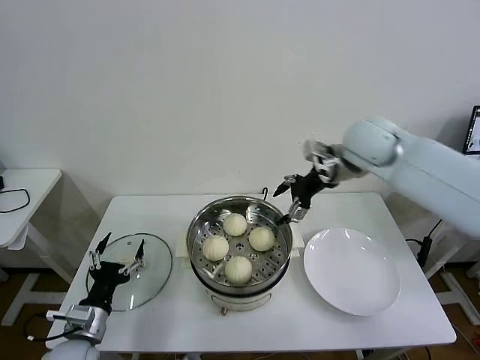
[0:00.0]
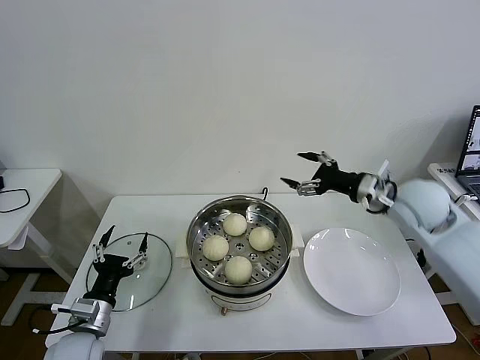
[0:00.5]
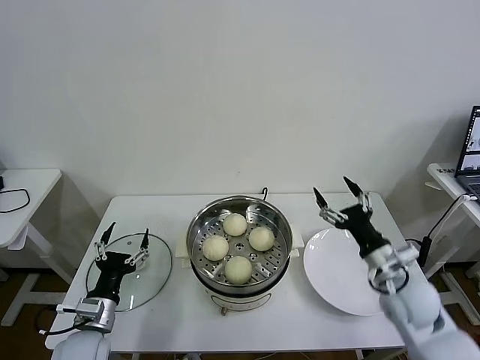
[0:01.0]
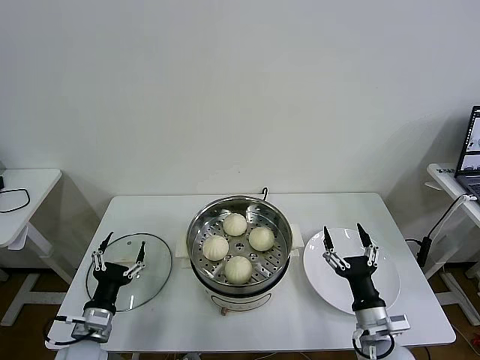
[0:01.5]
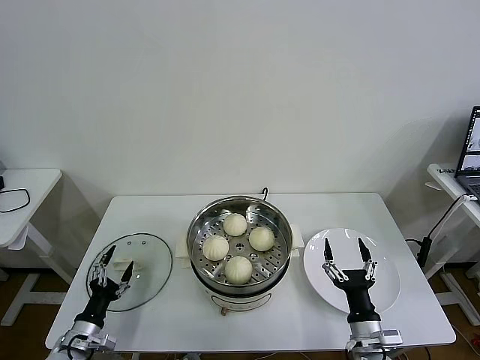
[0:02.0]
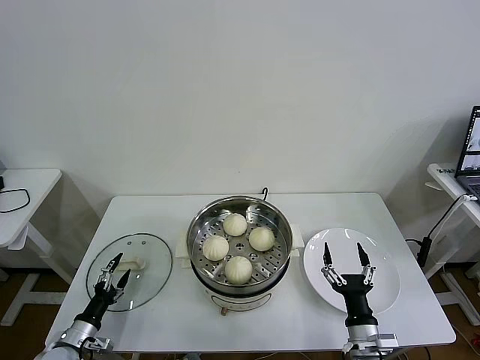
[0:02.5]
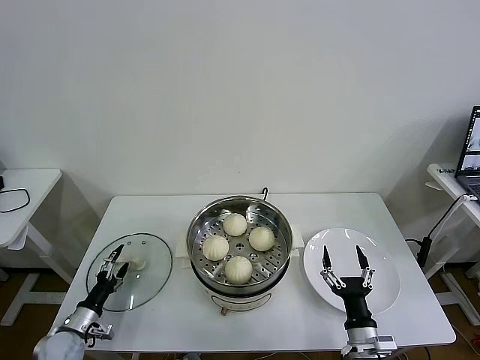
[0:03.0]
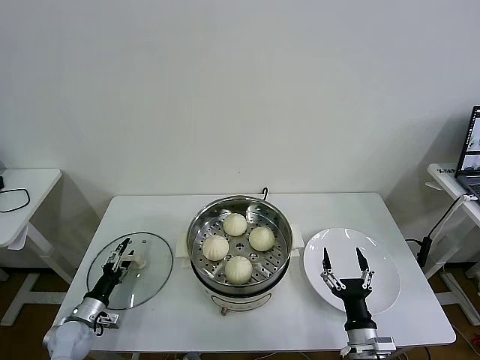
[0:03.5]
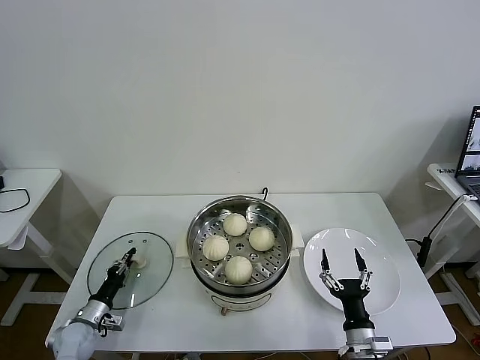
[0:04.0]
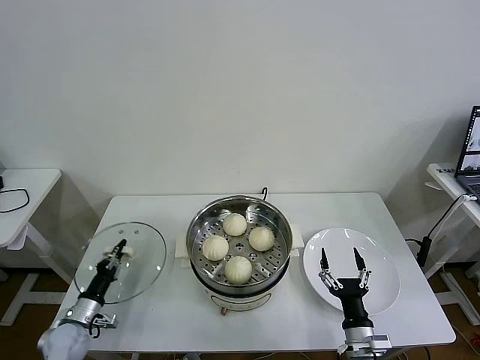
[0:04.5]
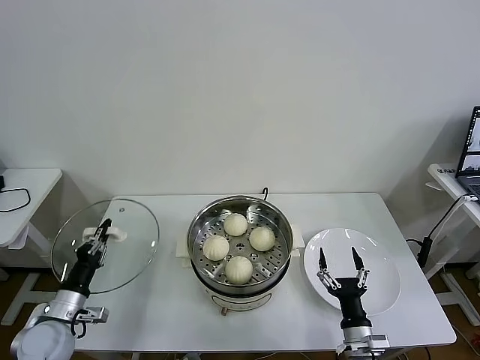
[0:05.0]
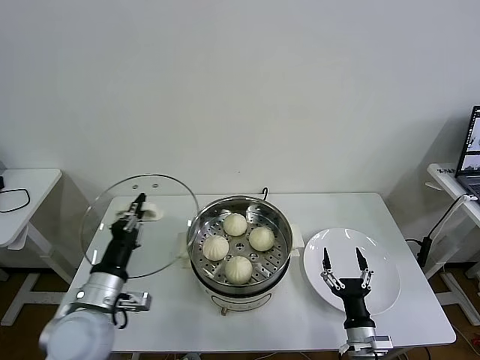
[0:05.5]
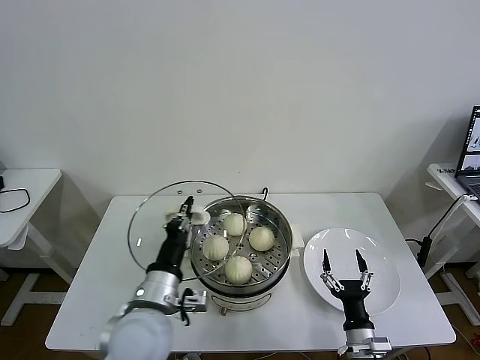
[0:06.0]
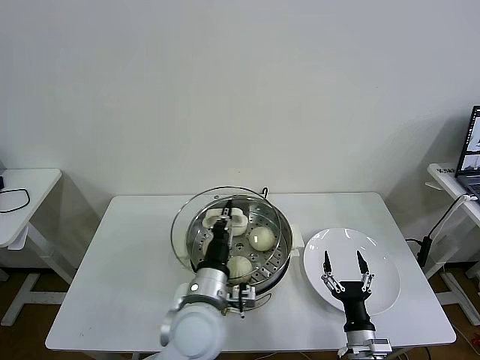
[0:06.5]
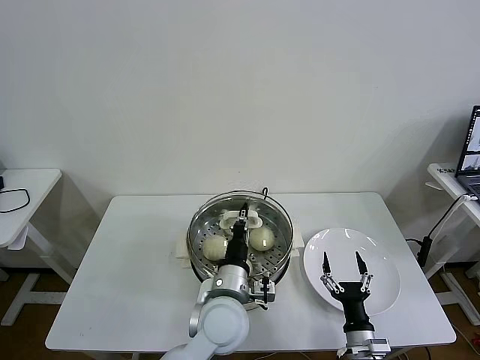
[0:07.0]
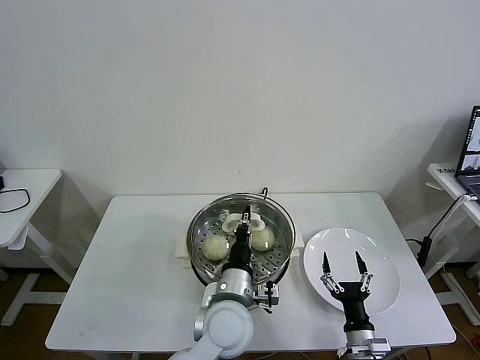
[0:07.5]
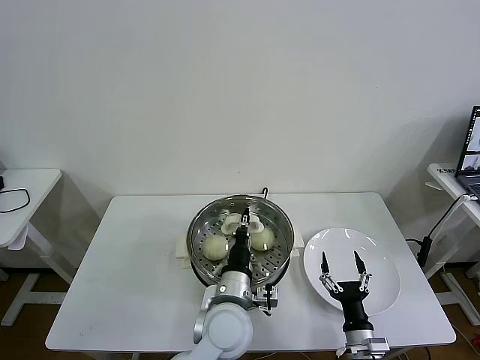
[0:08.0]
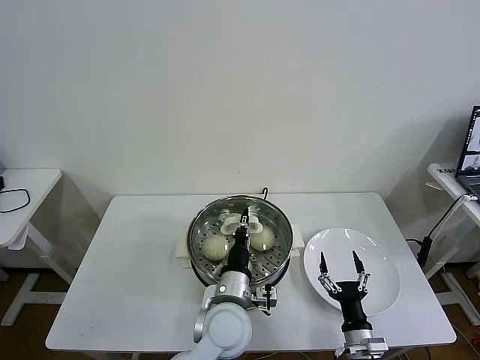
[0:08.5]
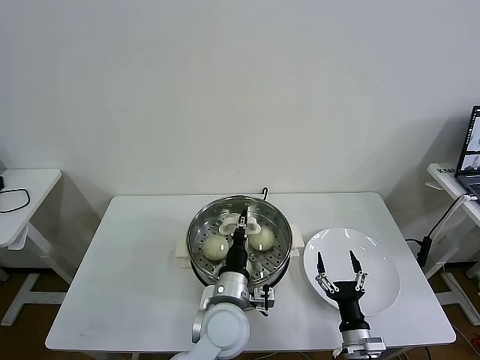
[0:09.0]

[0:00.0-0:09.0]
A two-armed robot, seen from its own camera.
Task of the whole recording: take steamed baozi put them in steamer then cover it.
Step, 0:00.0 to 0:04.0: Grasp the pot lid with left gripper.
0:00.0 to 0:02.0: The left gripper goes some 10 cm downward and to the left; the right gripper travels downward and backward by about 50 cm.
0:02.0 to 0:04.5: The left gripper shifts roughly 5 cm forward, and closes its fingers.
0:04.5 to 0:07.0: The left gripper goes about 40 cm to the right and upward.
0:07.0 to 0:09.0: The grippers stay close to where they were, moving slightly.

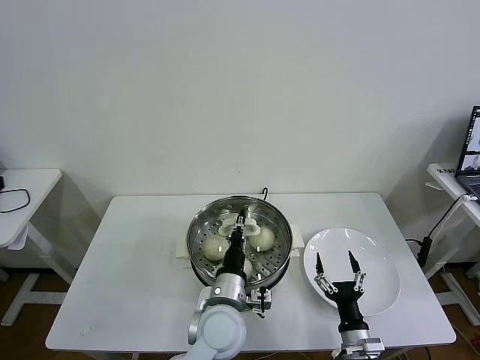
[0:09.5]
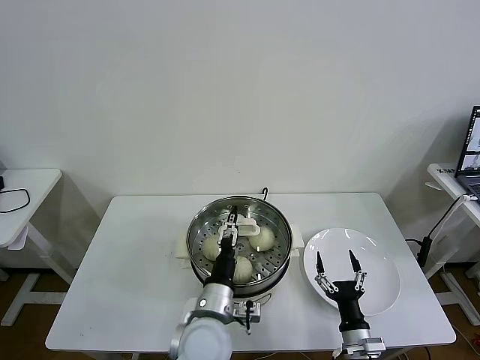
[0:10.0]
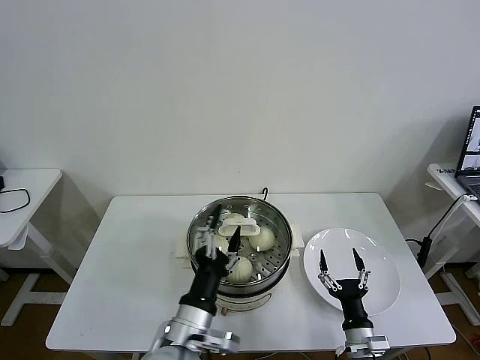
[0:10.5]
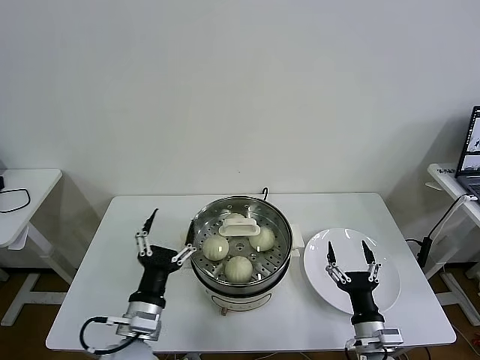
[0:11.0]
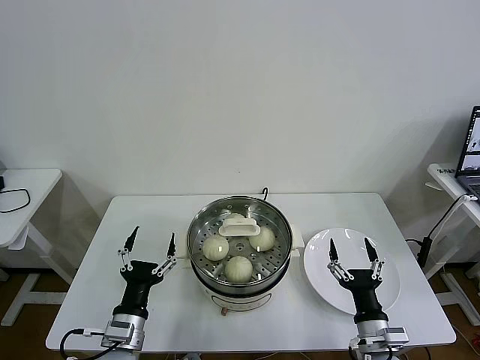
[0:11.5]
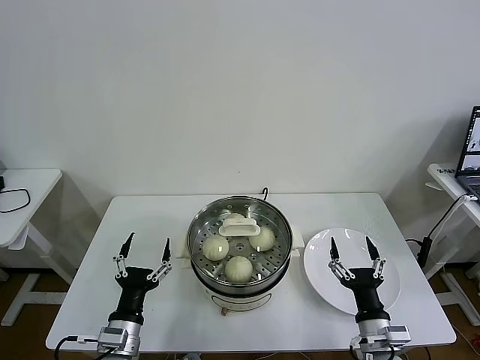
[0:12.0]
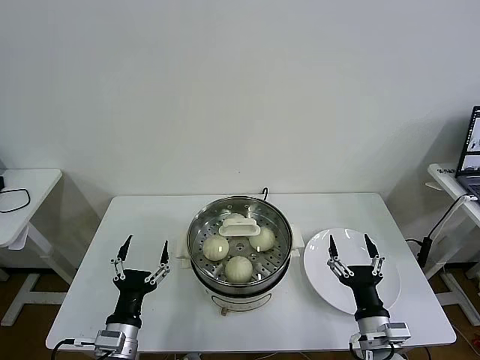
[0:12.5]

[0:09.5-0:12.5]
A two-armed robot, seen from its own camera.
Task of the whole recording: take steamed baozi put them in steamer then cover it.
0:09.5 to 0:11.0: The left gripper travels to the left and backward by some 15 cm, and opens its fingers. Meanwhile the right gripper shifts by approximately 5 cm.
0:11.0 to 0:12.5: The left gripper heads to the left and downward, covering roughly 10 cm.
